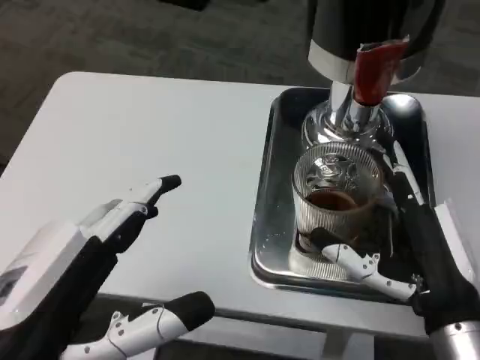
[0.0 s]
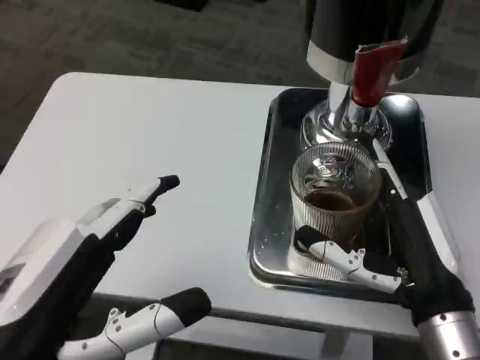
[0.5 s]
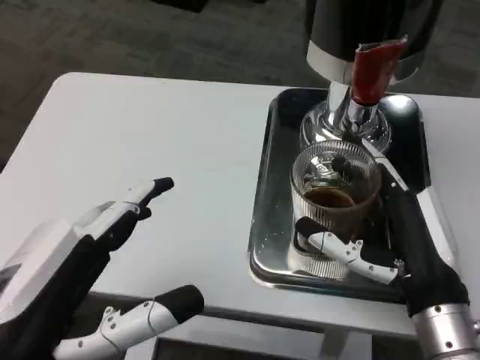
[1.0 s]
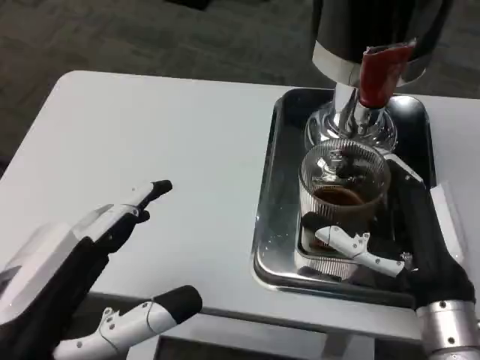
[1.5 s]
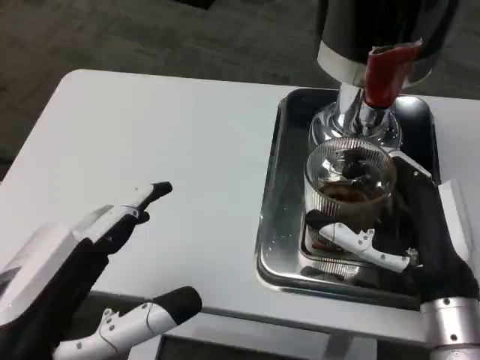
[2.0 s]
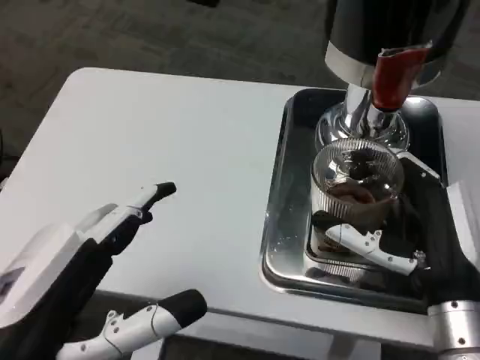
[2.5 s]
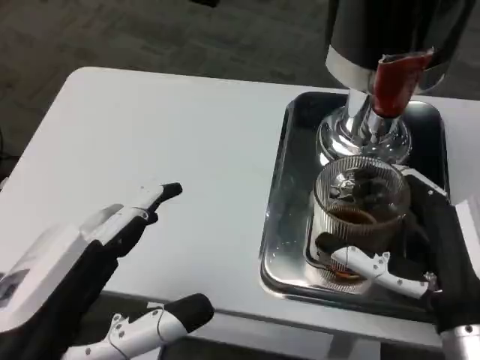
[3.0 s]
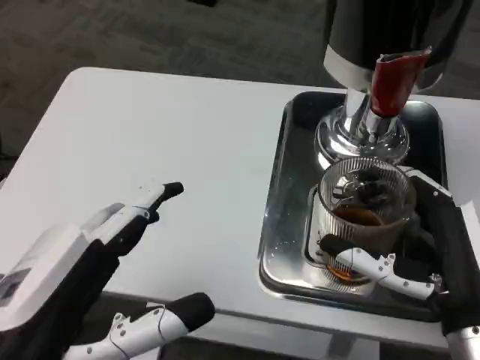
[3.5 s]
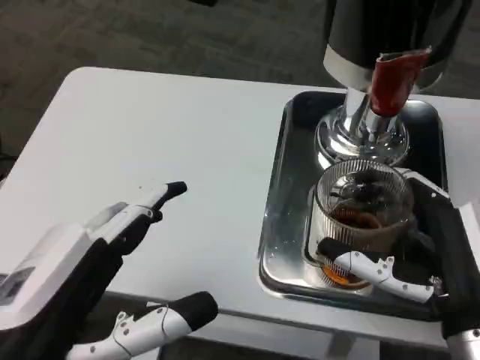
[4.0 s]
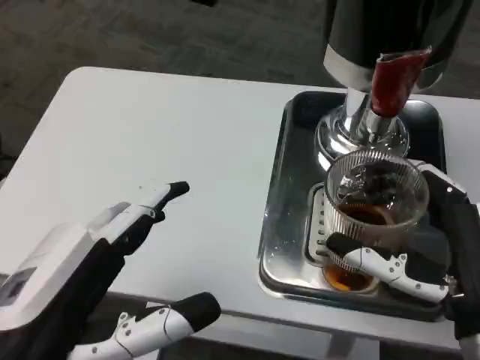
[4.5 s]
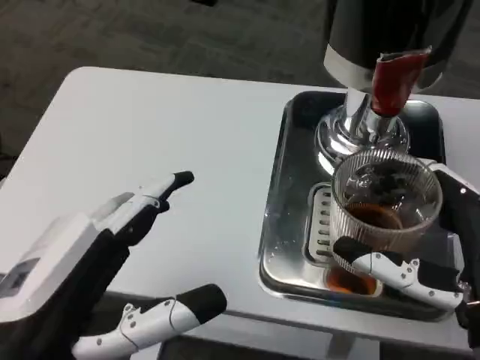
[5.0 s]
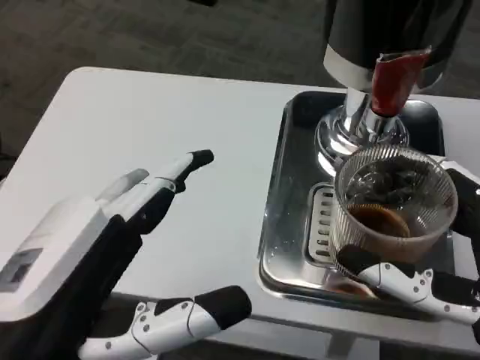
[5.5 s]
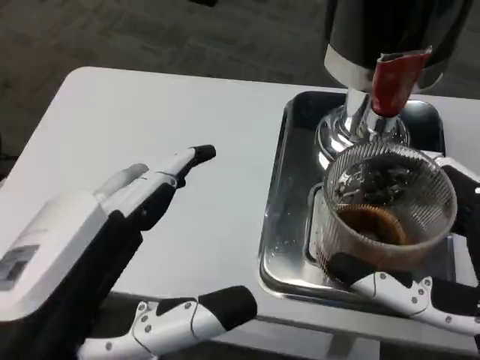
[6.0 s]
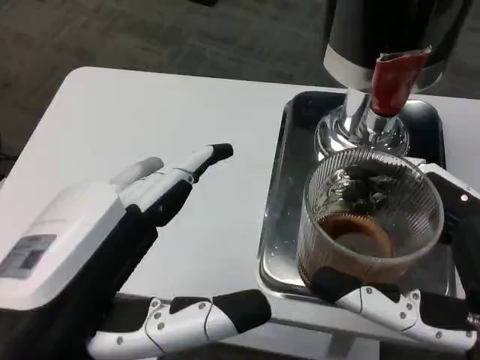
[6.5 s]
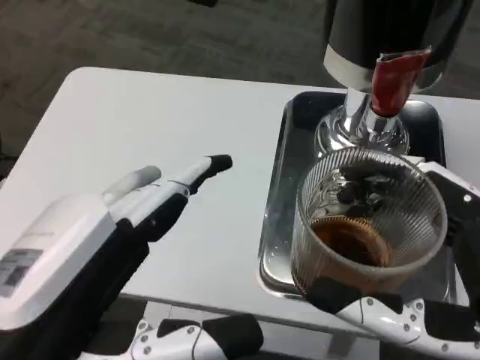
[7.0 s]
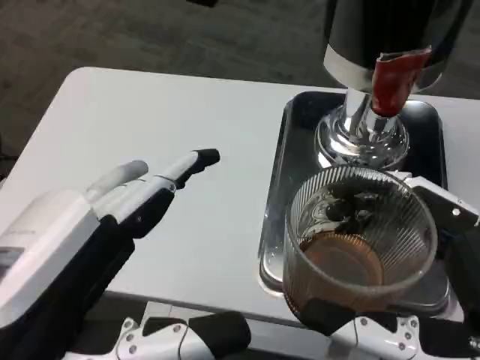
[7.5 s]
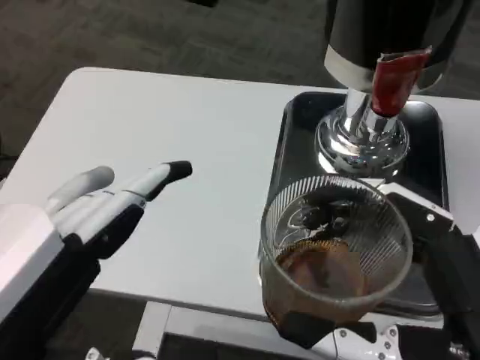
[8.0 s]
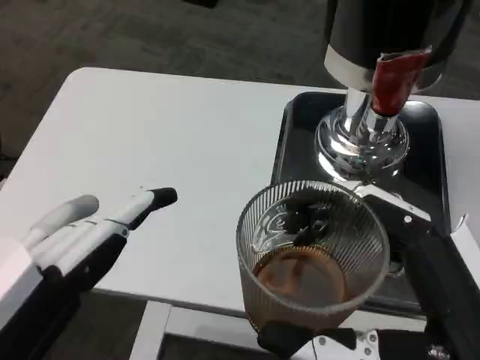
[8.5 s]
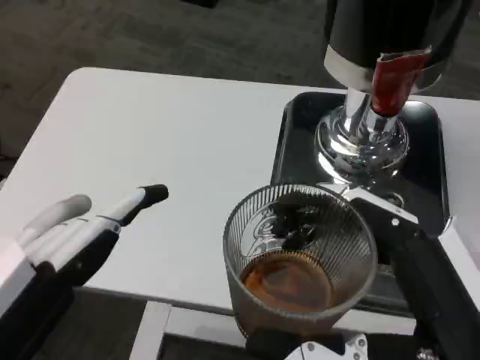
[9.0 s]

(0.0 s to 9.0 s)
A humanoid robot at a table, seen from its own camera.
Task of the whole recording: Grasp the cup under the faucet to collect the drink, then remove the cup.
4.5 s - 7.0 s: The right hand moves backward, about 10 cm.

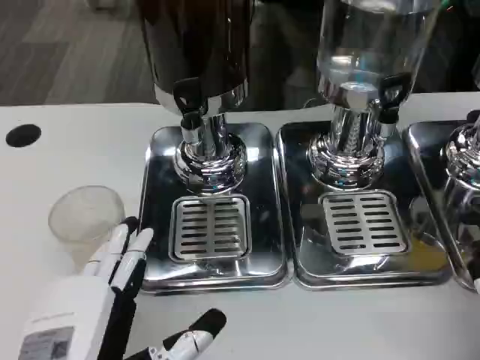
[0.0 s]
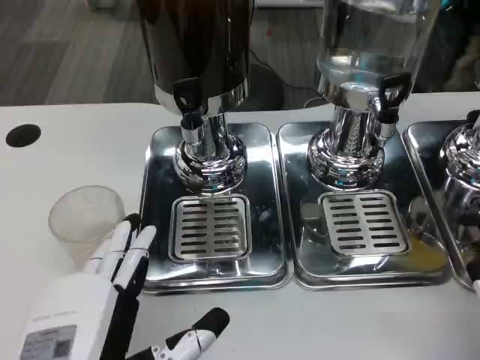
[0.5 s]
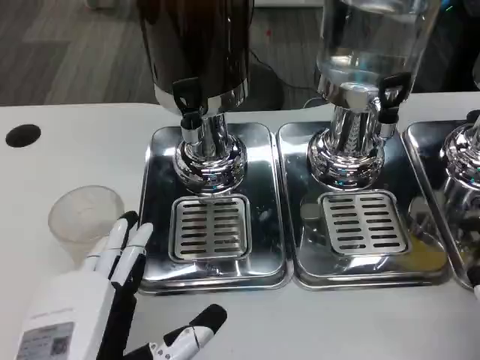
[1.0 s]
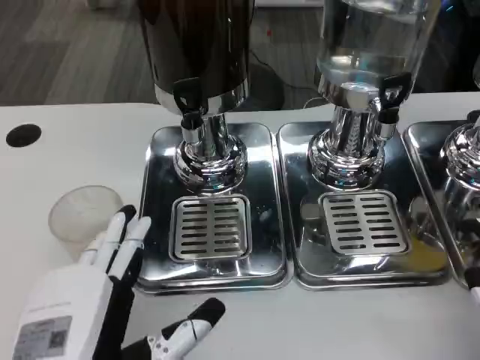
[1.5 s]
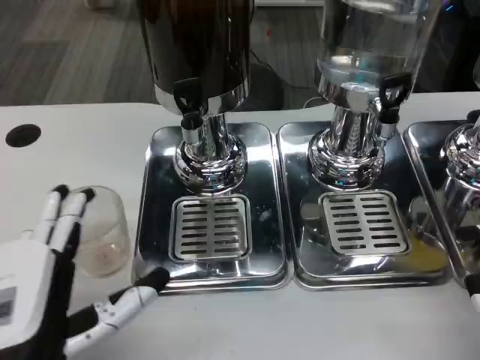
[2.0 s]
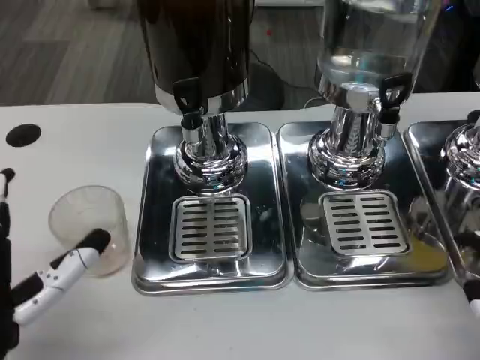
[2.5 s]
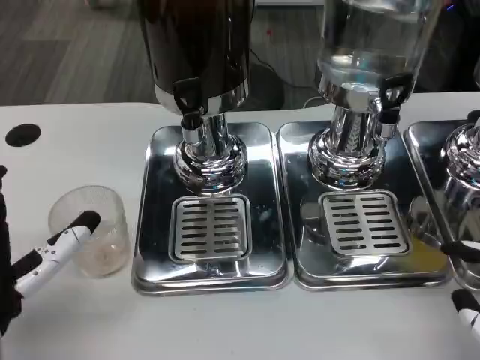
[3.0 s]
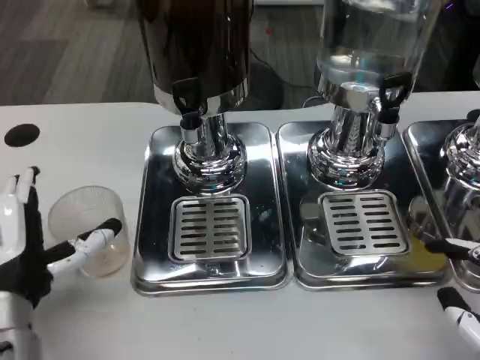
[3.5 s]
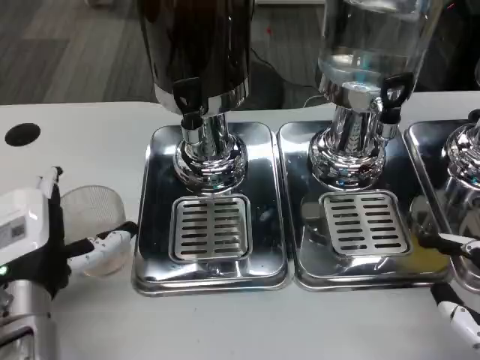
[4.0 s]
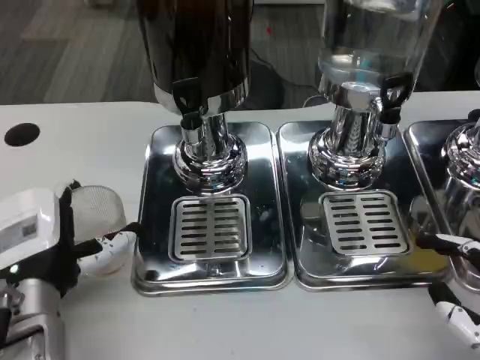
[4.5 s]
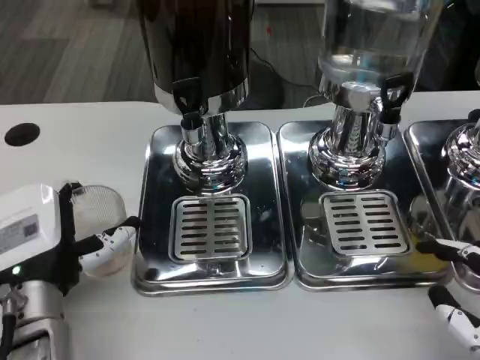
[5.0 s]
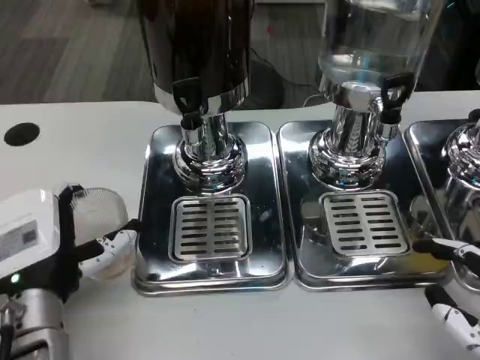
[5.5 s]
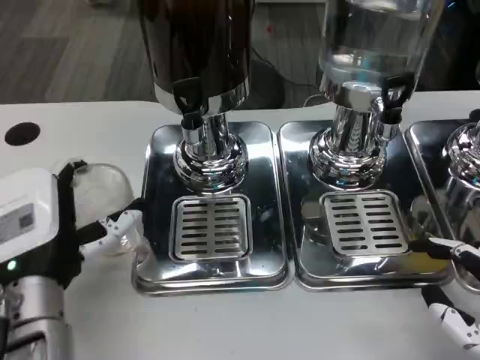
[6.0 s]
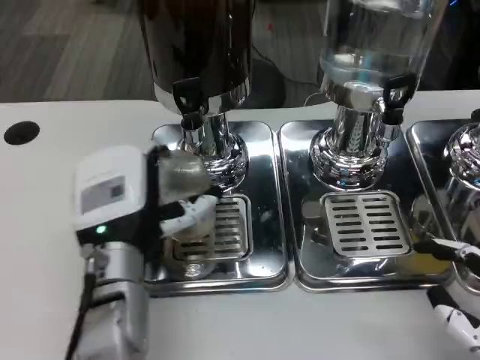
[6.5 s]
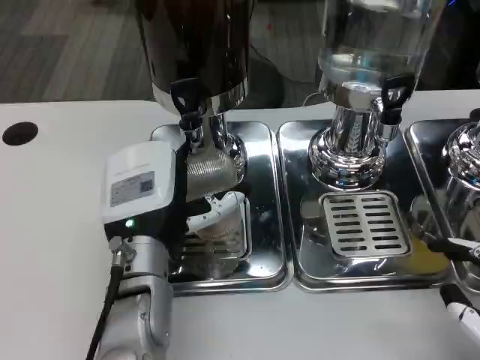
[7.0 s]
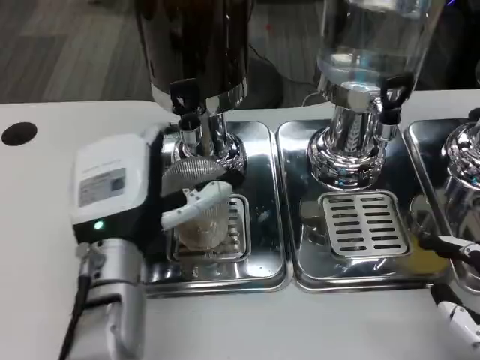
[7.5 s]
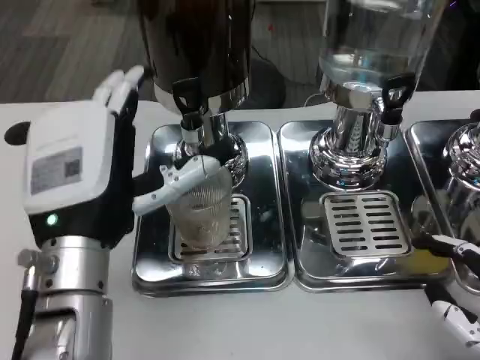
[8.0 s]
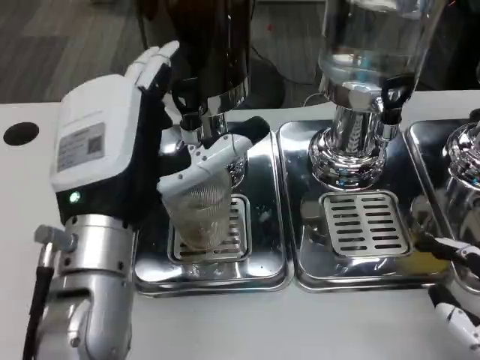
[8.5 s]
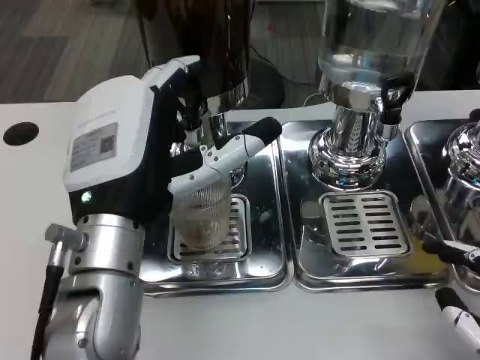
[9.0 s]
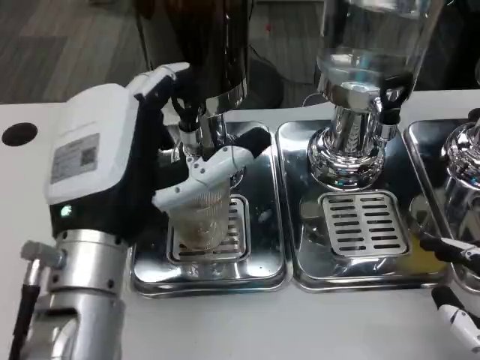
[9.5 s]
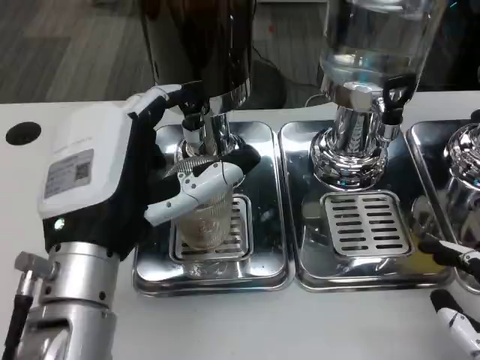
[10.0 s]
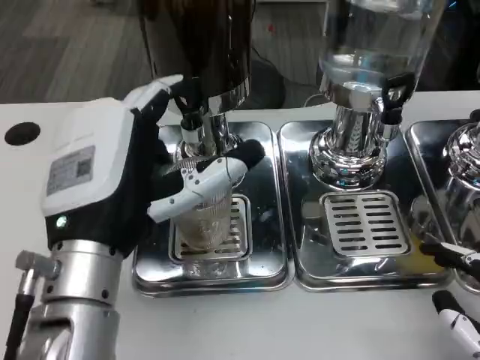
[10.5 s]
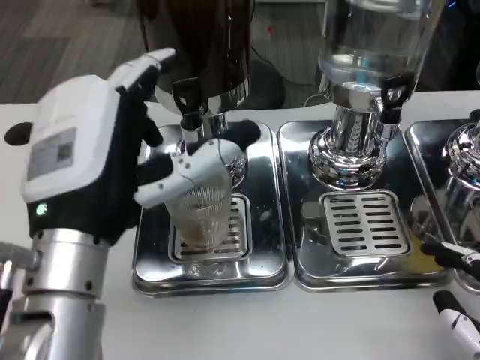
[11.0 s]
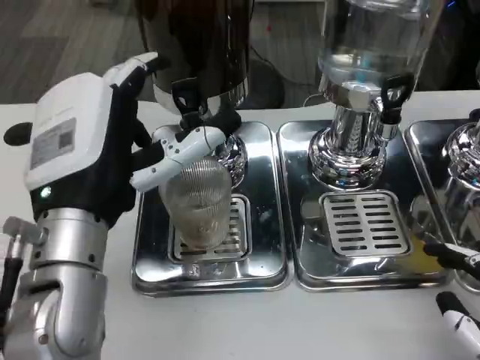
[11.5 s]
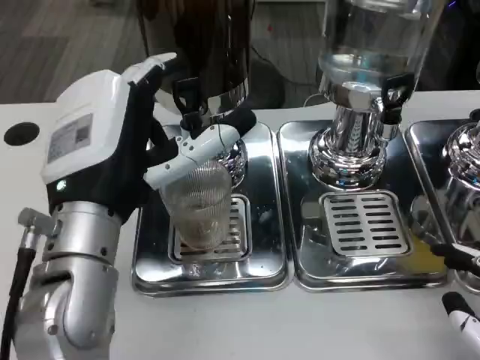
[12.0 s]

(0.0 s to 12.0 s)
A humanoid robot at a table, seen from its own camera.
Task of the whole recording: Grasp the cup under the faucet to collect the drink, then remove the cup.
0.0 s - 2.0 s: The hands stay close to where they were, moving slightly.
2.0 s - 4.0 s: The left hand goes some 10 cm forward.
4.0 s - 6.0 s: The hands move only a little.
6.0 s - 8.0 s: The left hand heads upward, covering roughly 5 cm.
8.0 s - 10.0 s: There are only small adjustments of the hands.

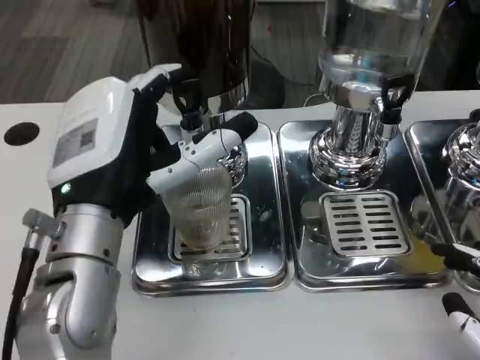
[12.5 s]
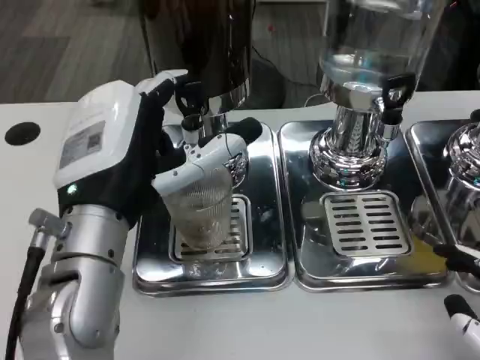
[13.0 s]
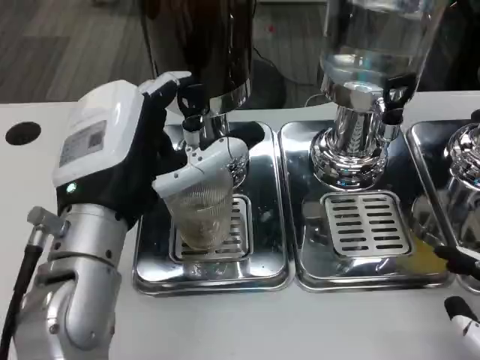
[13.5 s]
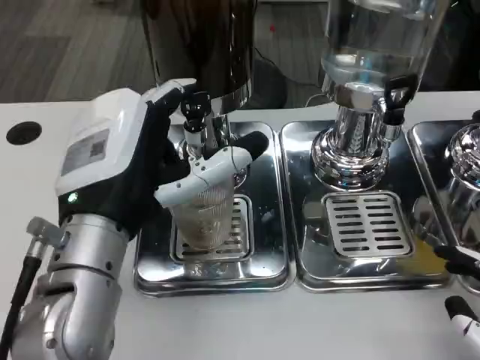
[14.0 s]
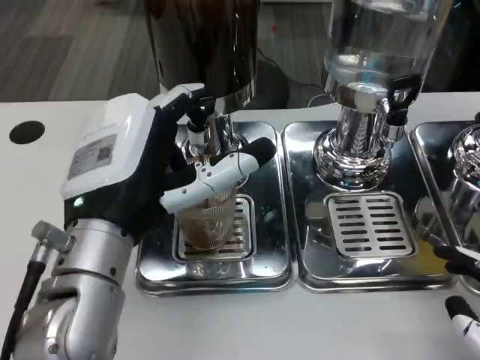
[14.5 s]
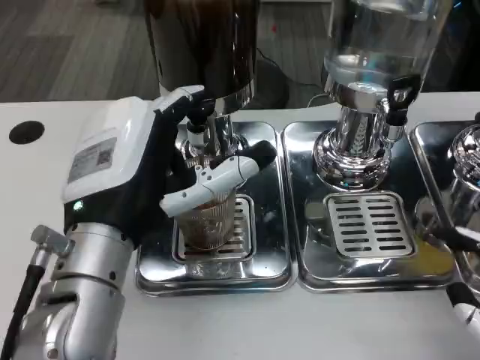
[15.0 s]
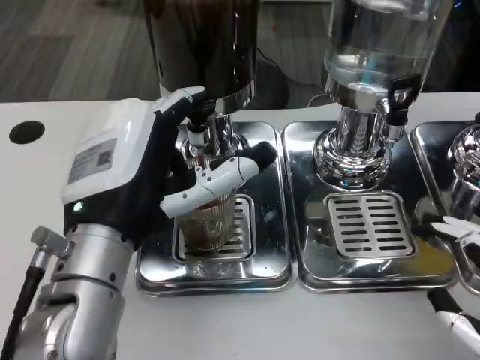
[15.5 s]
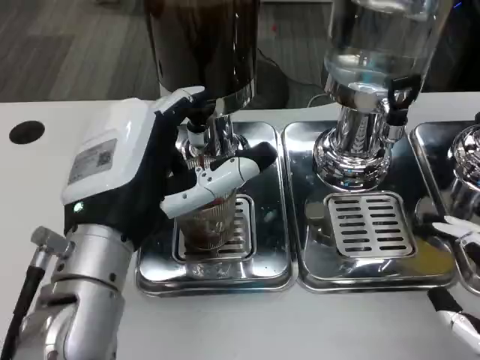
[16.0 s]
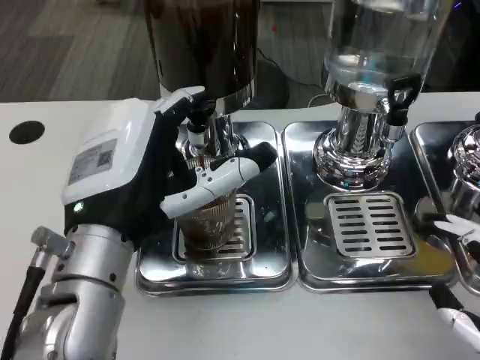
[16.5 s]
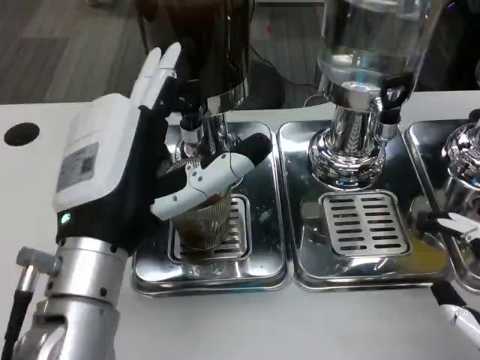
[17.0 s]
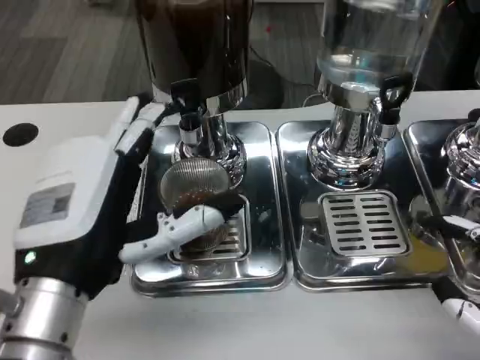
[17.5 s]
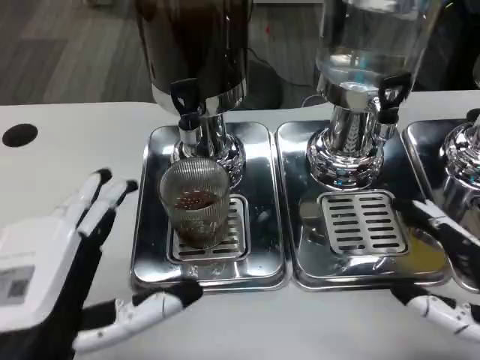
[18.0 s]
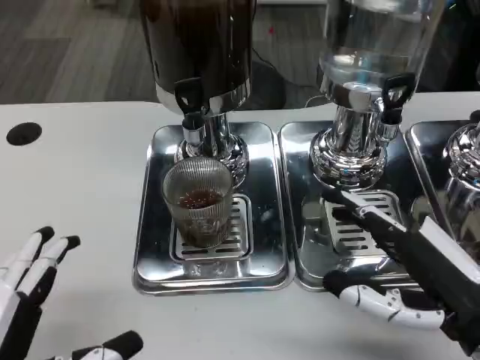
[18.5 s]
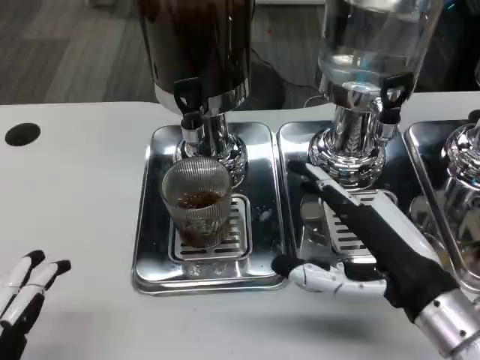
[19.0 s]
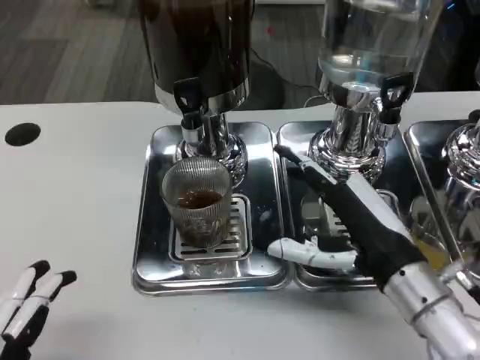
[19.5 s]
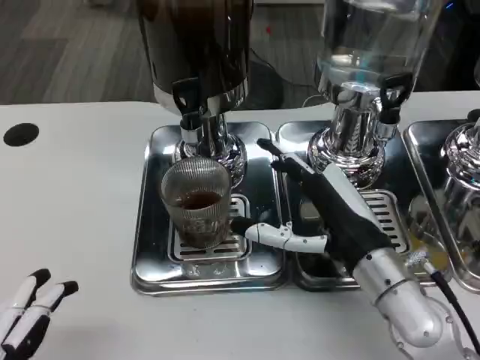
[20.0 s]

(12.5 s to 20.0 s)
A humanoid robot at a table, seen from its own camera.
Task of the whole recording: Grasp the cup under the faucet to collect the drink, then remove the cup.
16.5 s - 18.0 s: The left hand moves backward and to the left, roughly 10 cm.
18.0 s - 20.0 s: The right hand travels to the left and forward by some 15 cm. Meanwhile the left hand moves backward, about 10 cm.
